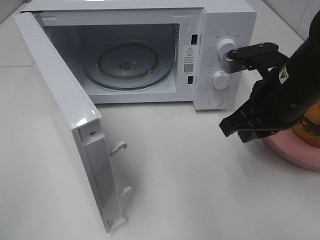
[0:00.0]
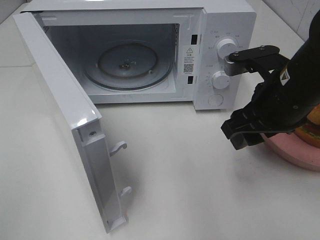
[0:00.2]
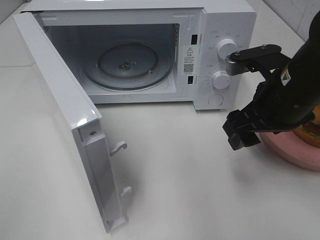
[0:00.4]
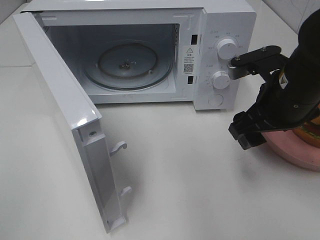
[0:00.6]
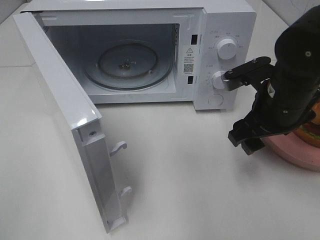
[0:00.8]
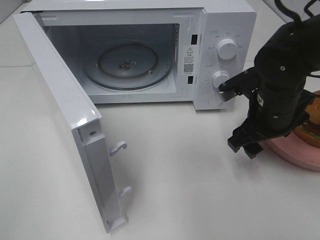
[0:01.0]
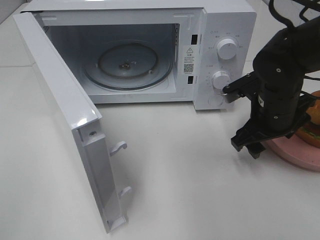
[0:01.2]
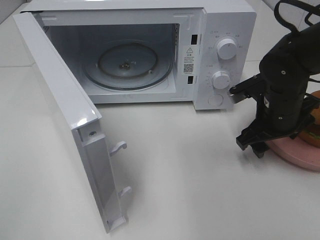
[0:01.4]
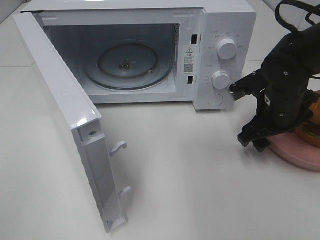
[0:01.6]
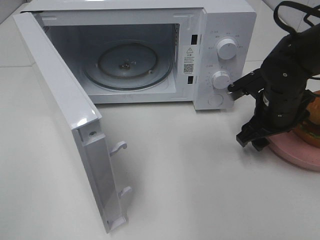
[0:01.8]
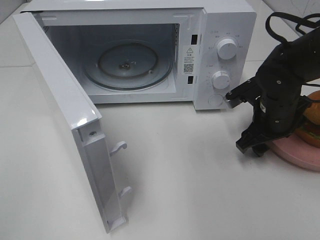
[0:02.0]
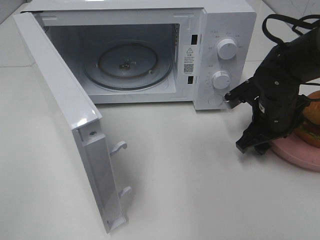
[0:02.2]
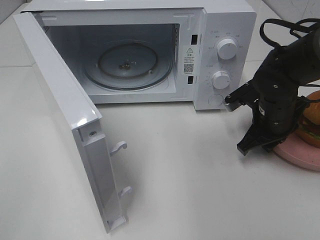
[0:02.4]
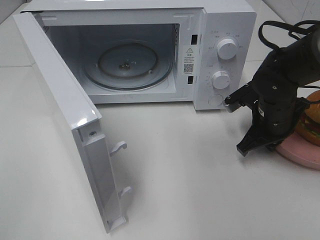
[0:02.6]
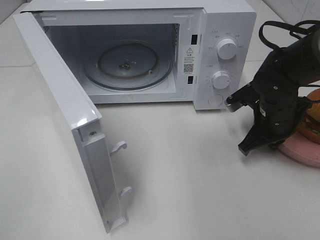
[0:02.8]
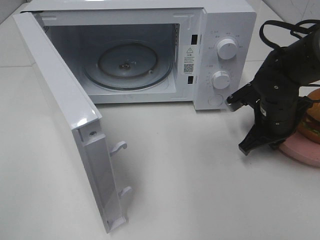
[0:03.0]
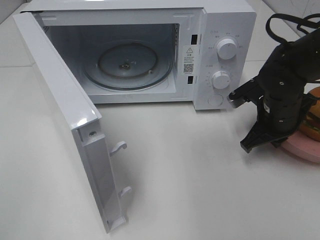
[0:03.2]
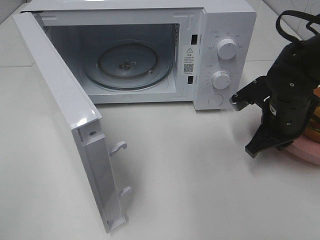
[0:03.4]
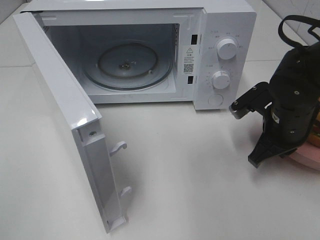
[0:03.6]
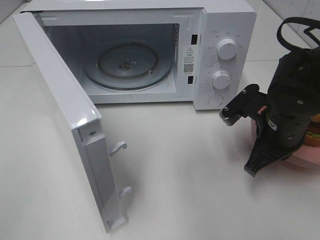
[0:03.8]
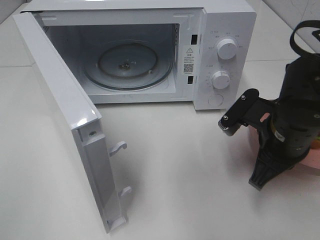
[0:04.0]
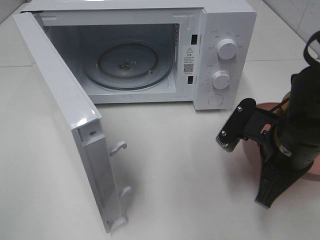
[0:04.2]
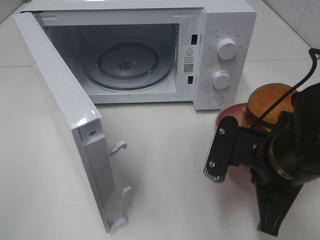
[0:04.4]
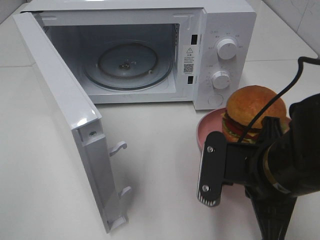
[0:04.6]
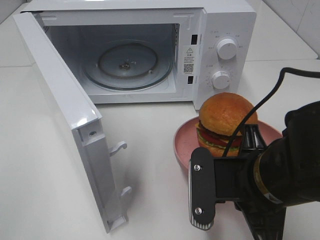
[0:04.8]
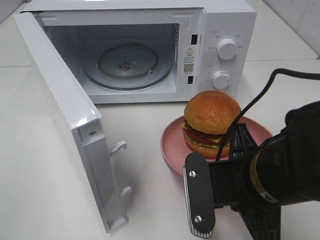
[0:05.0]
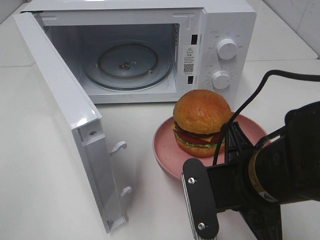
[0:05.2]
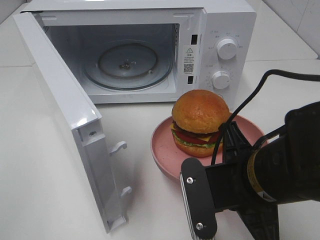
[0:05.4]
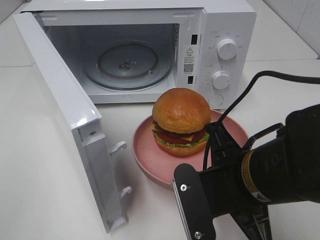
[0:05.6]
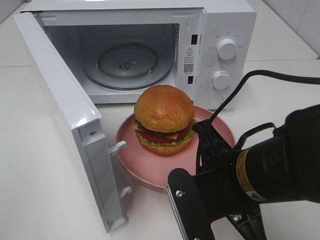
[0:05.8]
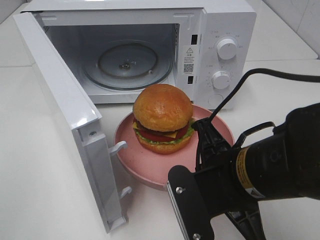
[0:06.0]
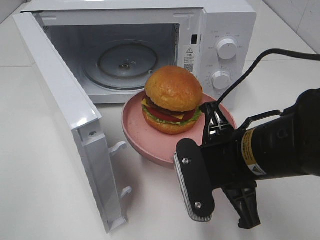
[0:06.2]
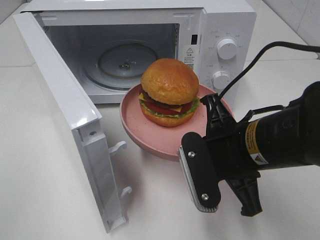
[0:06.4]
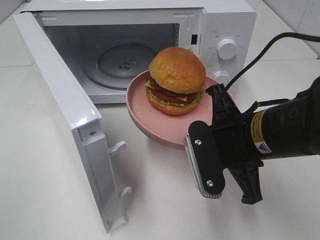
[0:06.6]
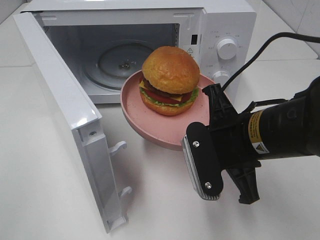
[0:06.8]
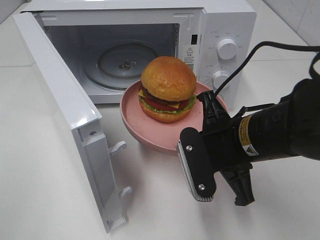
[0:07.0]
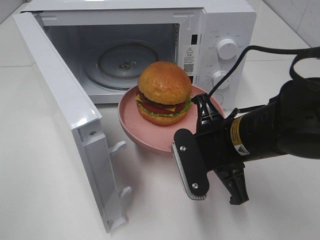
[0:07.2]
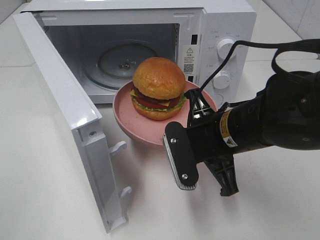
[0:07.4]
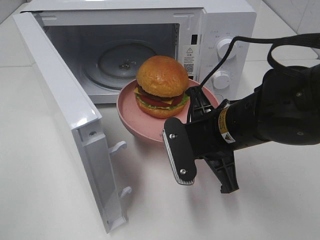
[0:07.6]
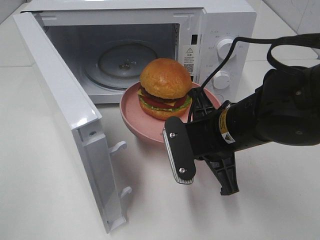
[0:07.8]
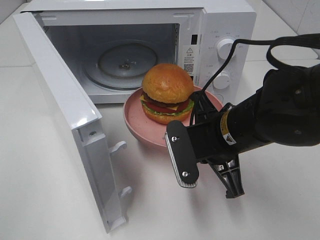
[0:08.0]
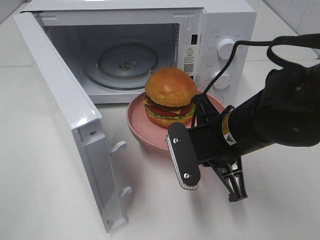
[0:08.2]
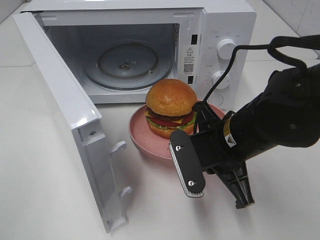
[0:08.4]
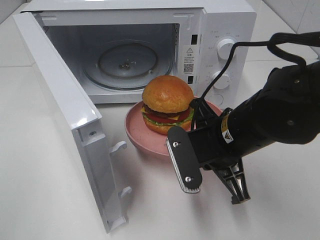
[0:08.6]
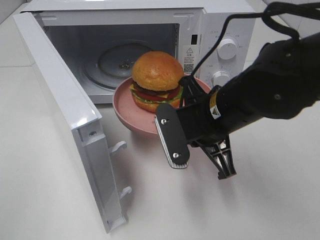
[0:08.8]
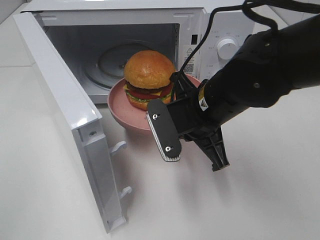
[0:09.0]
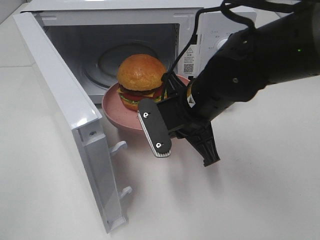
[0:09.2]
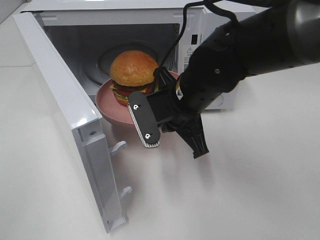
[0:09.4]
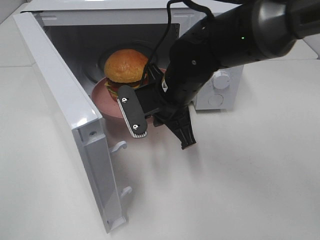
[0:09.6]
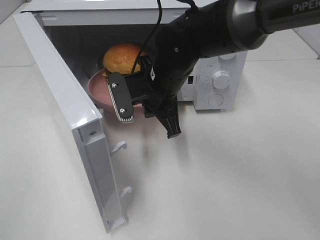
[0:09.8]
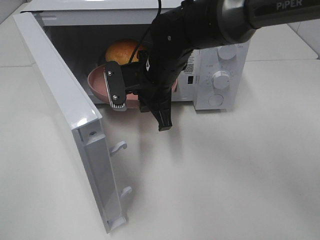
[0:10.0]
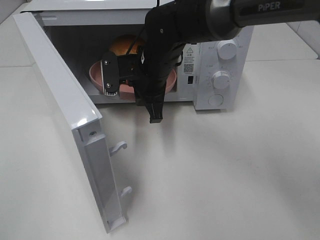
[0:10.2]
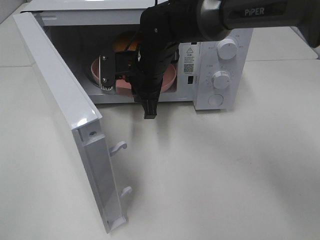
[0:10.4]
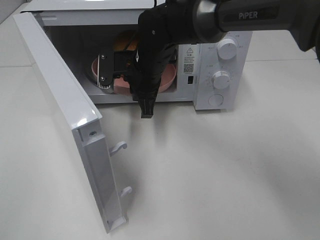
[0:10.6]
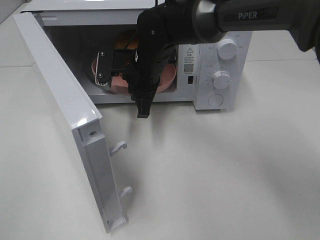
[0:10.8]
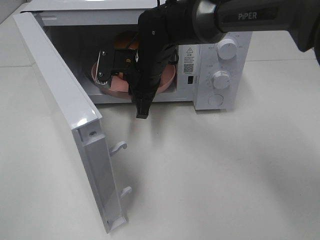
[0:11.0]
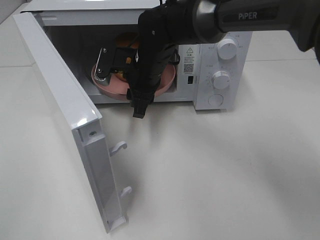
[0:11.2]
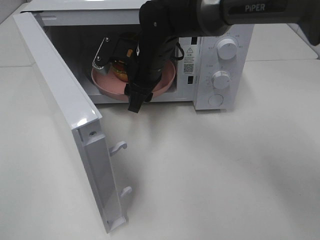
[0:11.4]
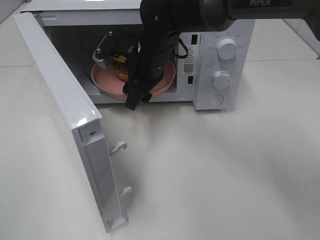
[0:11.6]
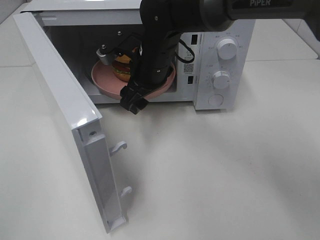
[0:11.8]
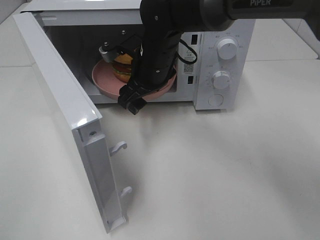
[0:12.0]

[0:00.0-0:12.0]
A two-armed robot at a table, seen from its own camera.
Task of the whole recording: Heat the burger.
Step, 0:00.0 to 0:02.8: Right hand: grab the plate with the hamburger.
Step, 0:03.0 to 0:11.2: Right hand: place the plate in the microwave.
0:00.0 to 0:01.6: The right gripper moves downward and forward, roughly 10 cm, and opens.
0:01.6 to 0:03.0: The right gripper closes its fingers.
0:03.0 to 0:04.4: The right gripper goes approximately 15 cm backward.
0:04.4 to 0:06.0: The right gripper ends up some 5 cm from where it was.
0:06.0 to 0:07.6: The right gripper moves forward, approximately 5 cm.
0:09.0 to 0:10.4: The right gripper shifts approximately 15 cm forward and to the left.
0:10.4 to 0:12.0: The right gripper opens its fingers.

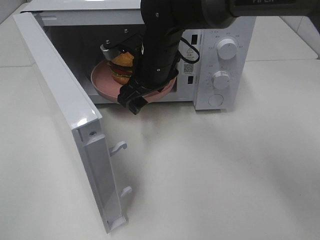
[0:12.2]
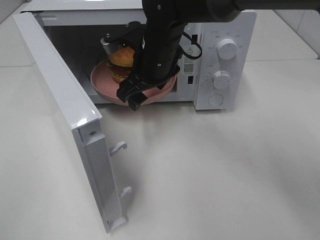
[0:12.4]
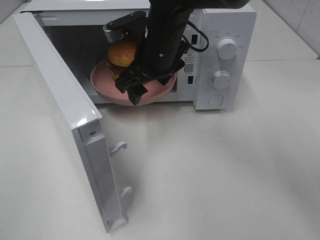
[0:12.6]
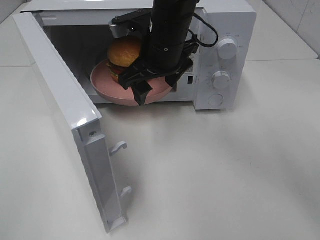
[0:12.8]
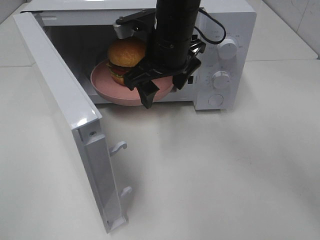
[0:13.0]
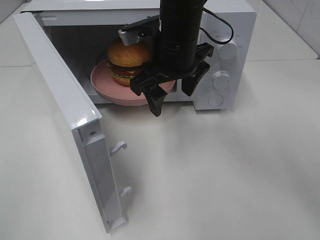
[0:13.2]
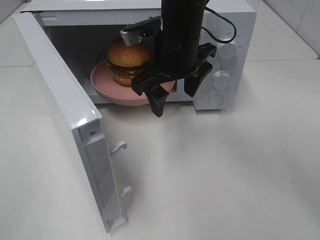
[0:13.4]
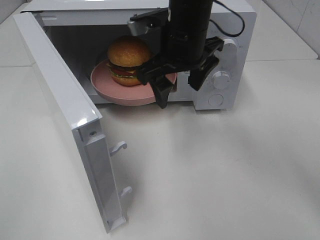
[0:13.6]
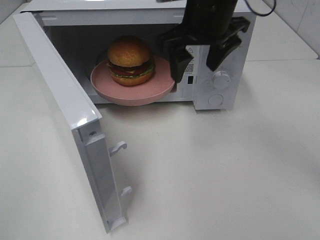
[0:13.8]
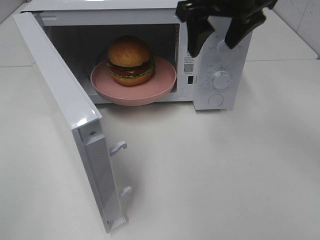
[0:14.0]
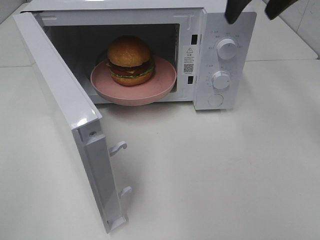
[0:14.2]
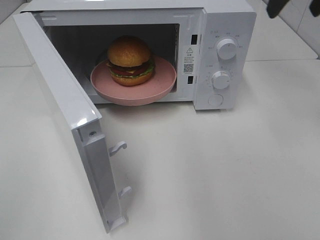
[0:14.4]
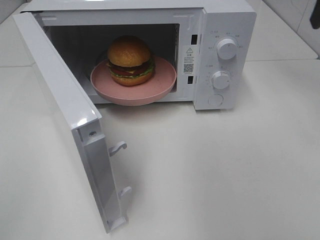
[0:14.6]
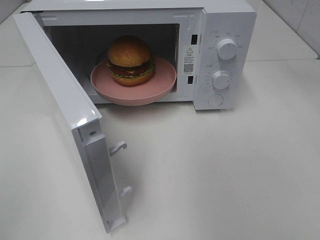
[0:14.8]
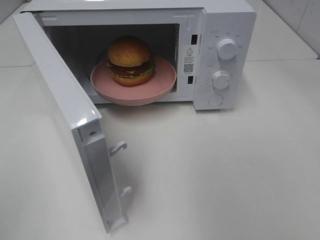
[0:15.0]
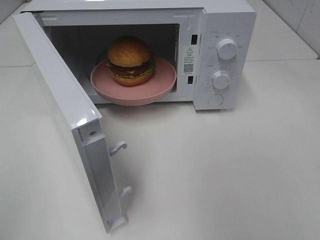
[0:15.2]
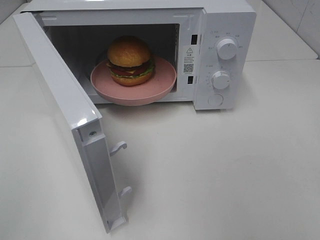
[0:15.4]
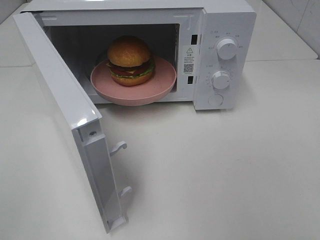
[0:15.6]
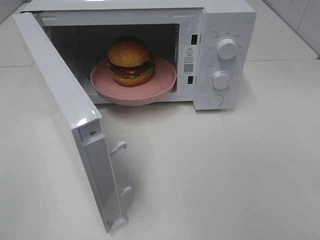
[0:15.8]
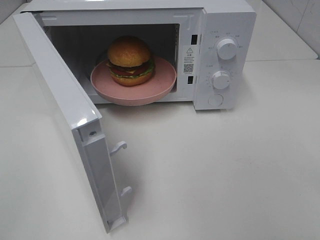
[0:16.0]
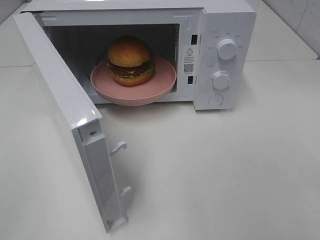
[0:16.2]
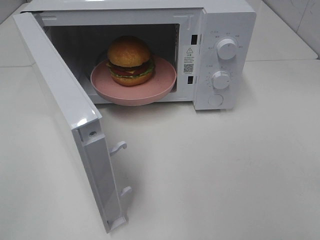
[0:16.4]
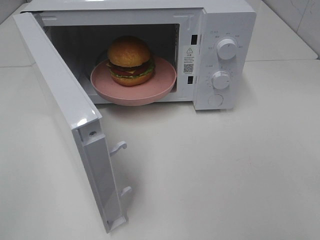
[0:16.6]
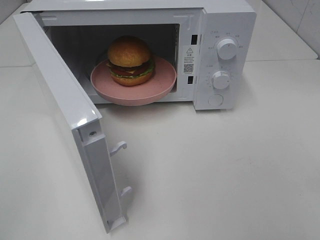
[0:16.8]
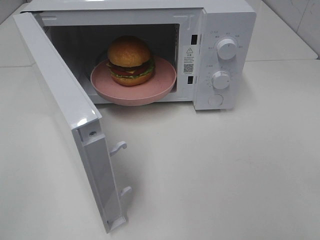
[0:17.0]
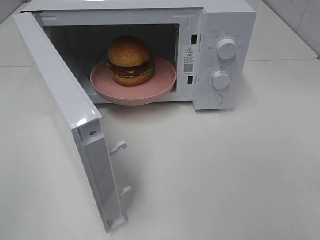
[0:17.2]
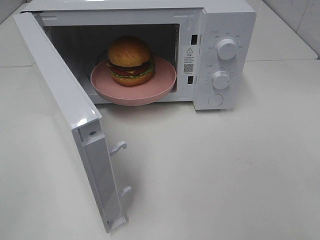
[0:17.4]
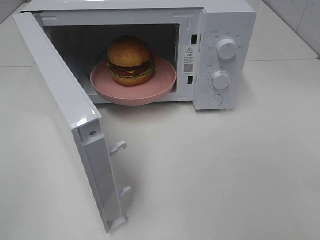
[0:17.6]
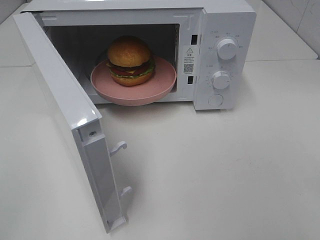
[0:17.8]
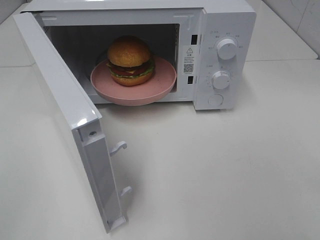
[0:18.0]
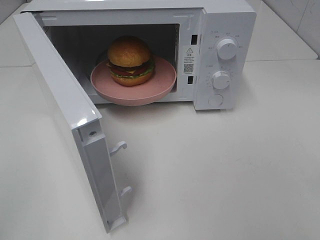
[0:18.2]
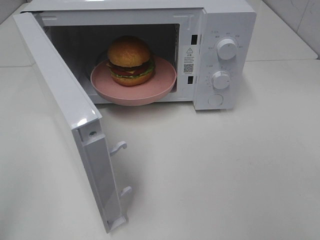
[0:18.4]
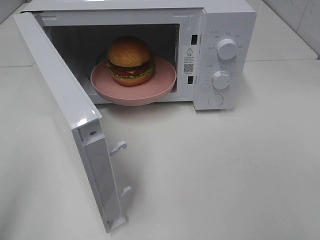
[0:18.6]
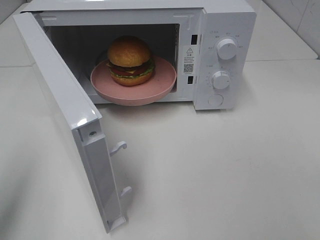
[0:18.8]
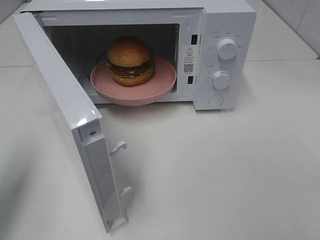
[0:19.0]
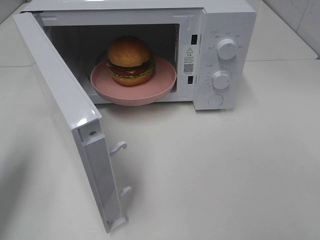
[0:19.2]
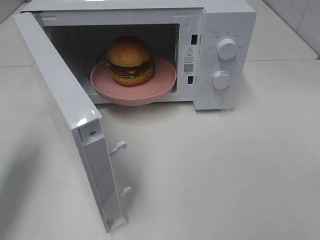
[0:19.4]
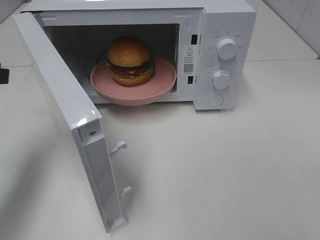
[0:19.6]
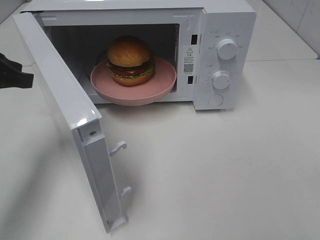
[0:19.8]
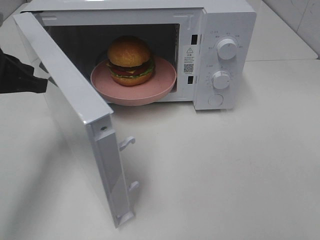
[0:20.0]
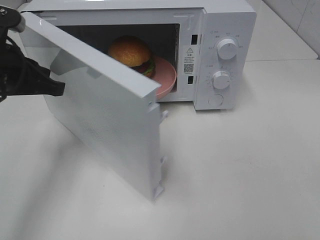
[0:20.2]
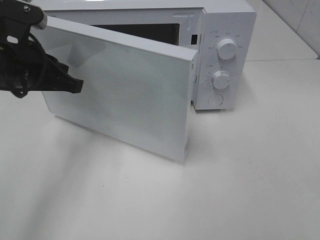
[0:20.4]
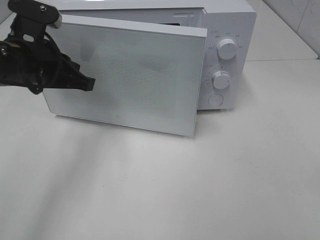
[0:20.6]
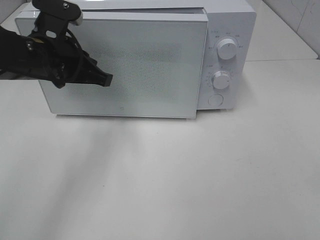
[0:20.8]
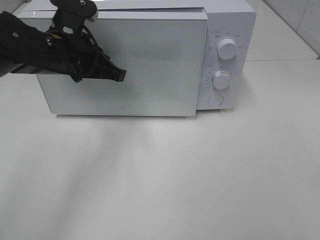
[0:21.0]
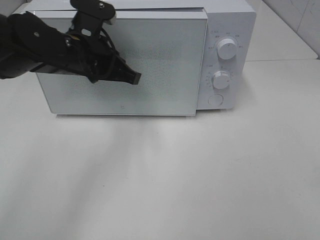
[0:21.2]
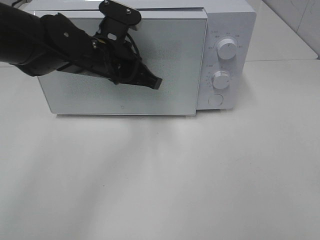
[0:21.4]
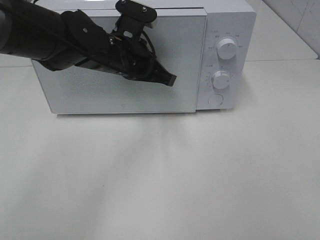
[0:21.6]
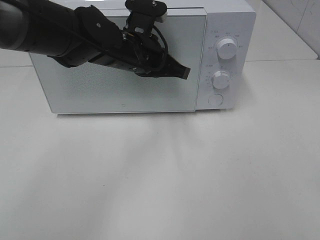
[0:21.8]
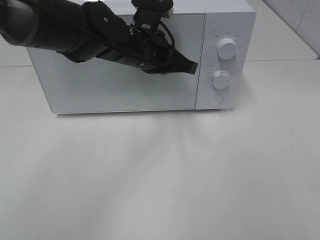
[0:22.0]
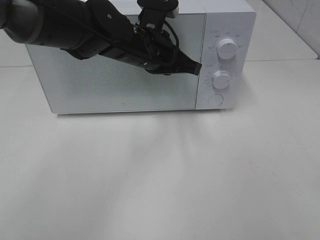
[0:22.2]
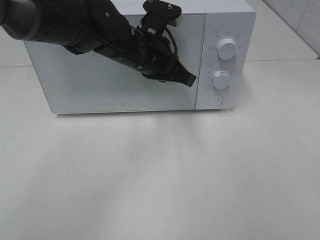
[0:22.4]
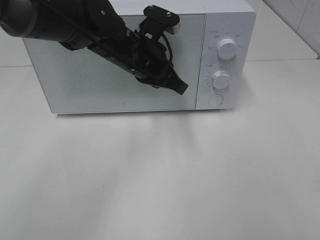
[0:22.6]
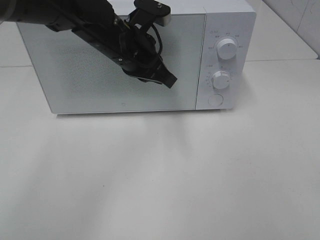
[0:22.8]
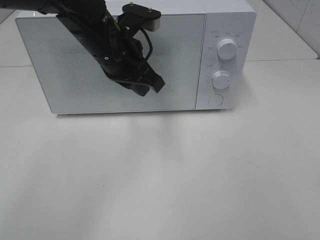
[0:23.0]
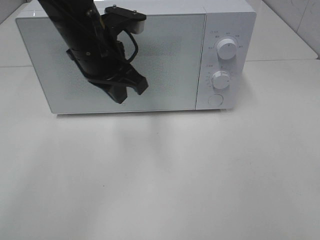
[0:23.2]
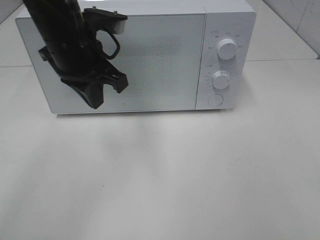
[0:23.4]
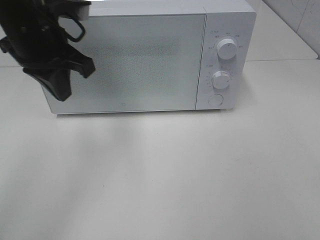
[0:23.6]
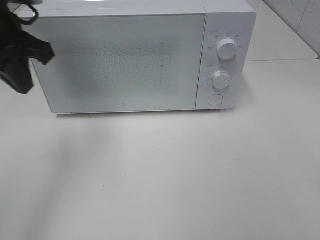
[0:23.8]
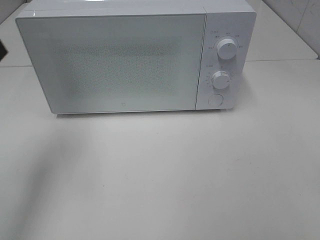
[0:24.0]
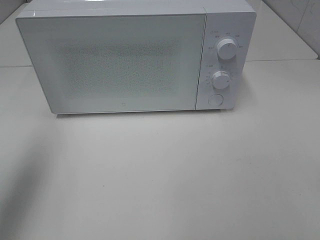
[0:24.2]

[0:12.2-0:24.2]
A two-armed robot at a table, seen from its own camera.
Task of the whole recording: Heat the burger.
Step, 0:12.2 to 0:22.4: Left hand: close the microwave door.
0:12.2 to 0:13.8: The right gripper moves upward and to the right, some 15 cm.
0:13.8 to 0:15.2: The right gripper goes about 25 cm to the right and backward.
0:16.6 to 0:18.2: The two grippers keep their place.
0:18.2 to 0:19.8: The left gripper travels forward by about 25 cm.
0:19.8 to 0:21.2: The left gripper shifts some 15 cm to the right and forward.
0:21.2 to 0:22.6: The left gripper is displaced to the right by about 10 cm.
0:22.6 to 0:24.2: The left gripper is displaced to the left, backward and upward by some 35 cm.
